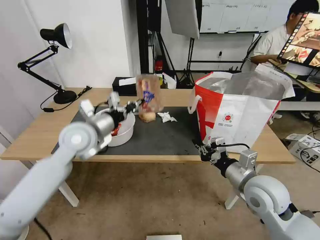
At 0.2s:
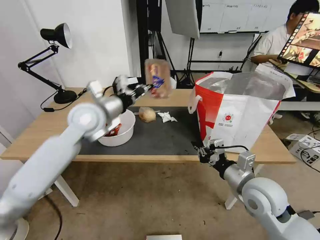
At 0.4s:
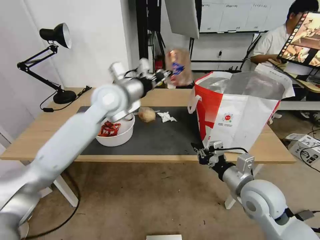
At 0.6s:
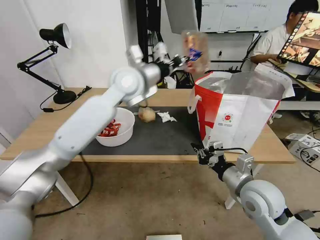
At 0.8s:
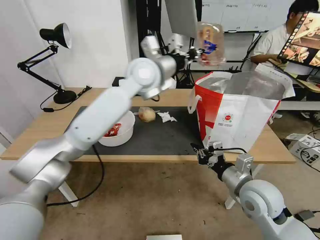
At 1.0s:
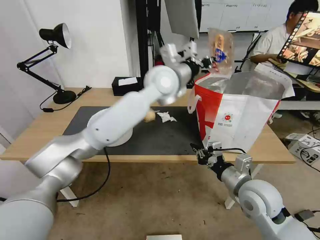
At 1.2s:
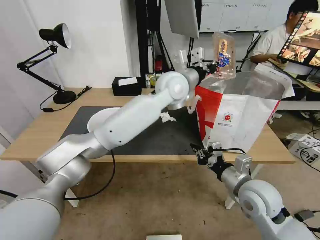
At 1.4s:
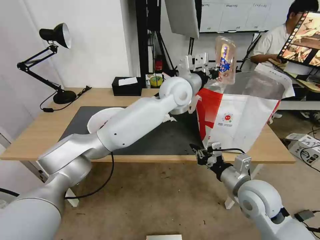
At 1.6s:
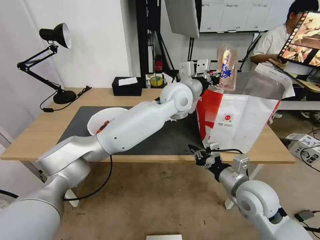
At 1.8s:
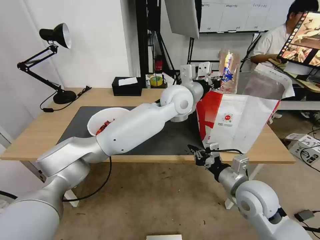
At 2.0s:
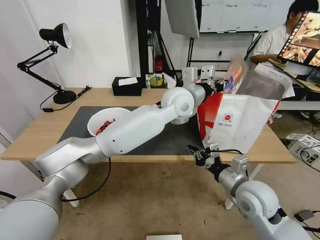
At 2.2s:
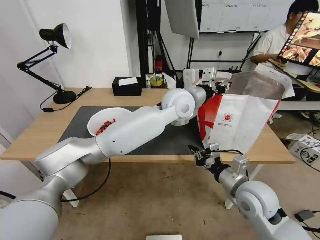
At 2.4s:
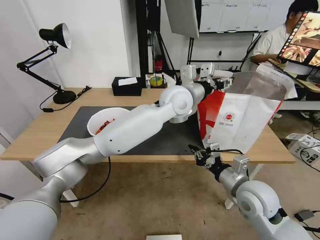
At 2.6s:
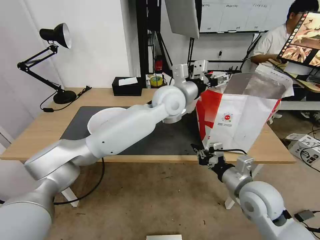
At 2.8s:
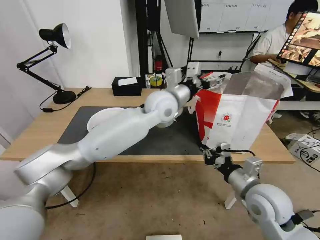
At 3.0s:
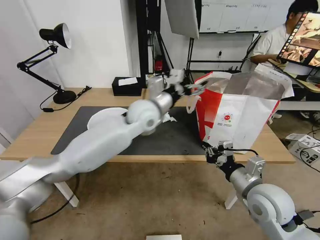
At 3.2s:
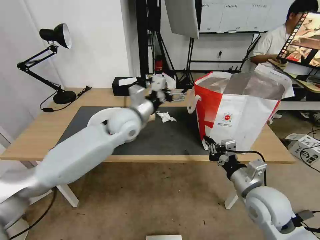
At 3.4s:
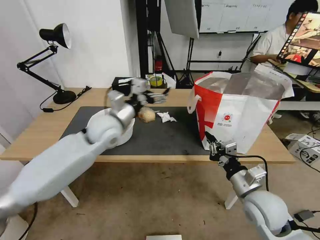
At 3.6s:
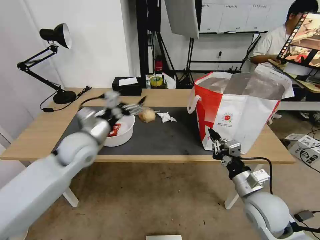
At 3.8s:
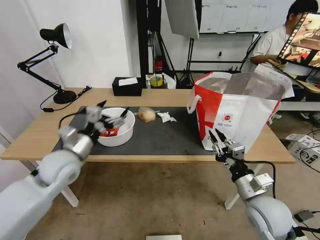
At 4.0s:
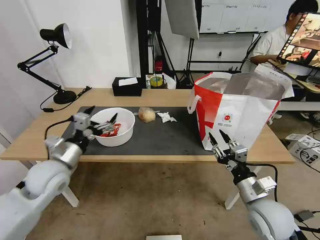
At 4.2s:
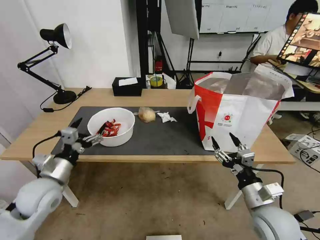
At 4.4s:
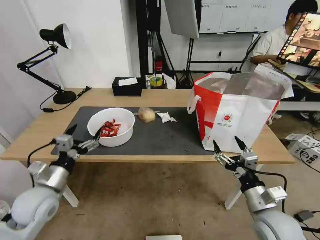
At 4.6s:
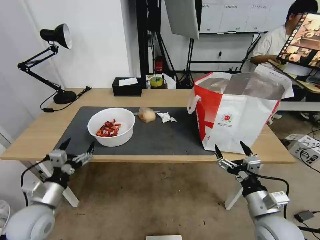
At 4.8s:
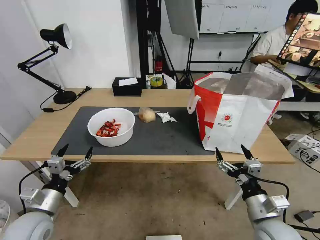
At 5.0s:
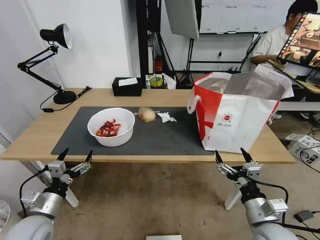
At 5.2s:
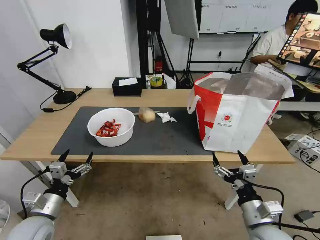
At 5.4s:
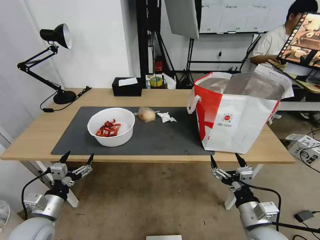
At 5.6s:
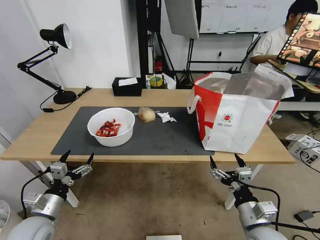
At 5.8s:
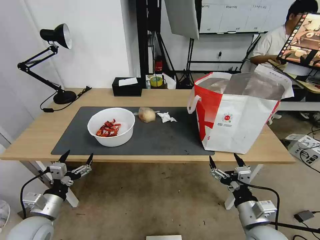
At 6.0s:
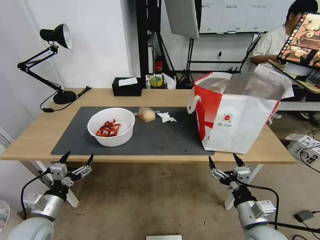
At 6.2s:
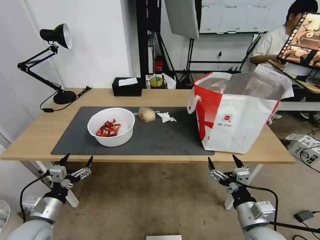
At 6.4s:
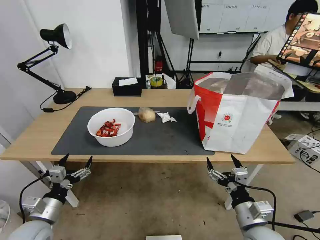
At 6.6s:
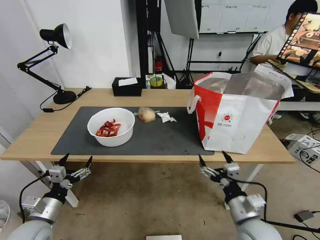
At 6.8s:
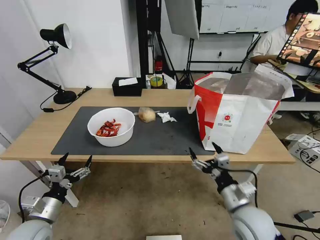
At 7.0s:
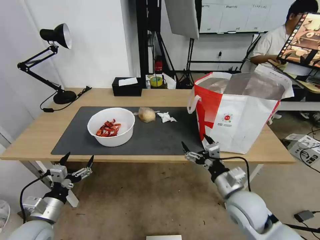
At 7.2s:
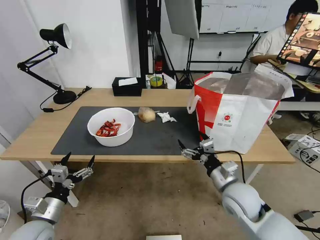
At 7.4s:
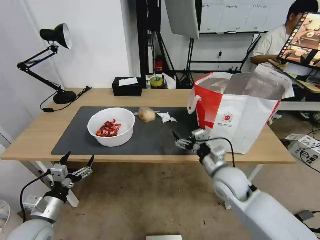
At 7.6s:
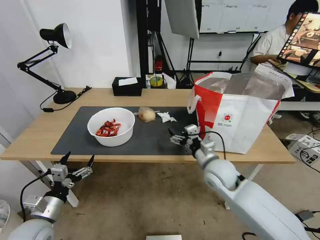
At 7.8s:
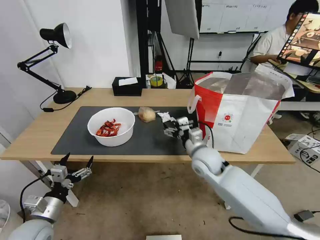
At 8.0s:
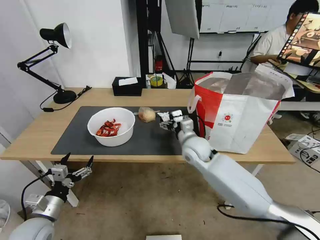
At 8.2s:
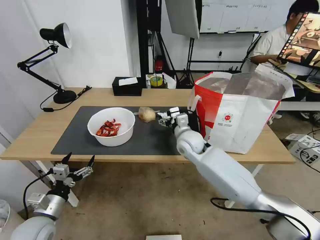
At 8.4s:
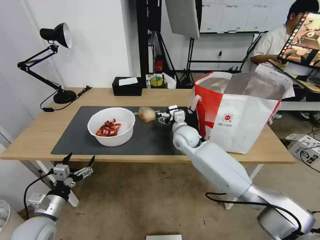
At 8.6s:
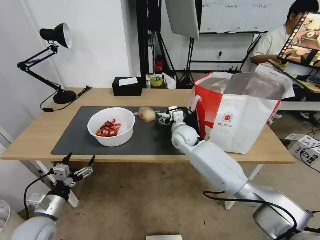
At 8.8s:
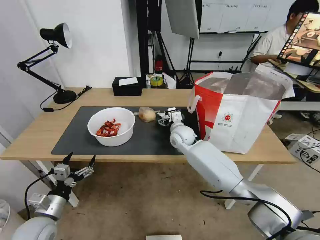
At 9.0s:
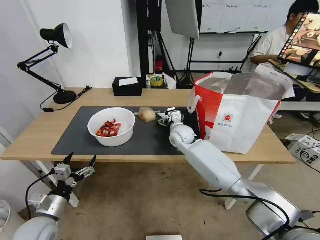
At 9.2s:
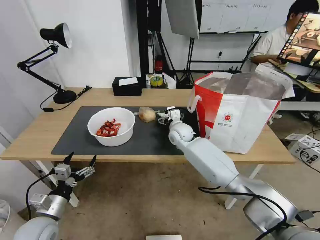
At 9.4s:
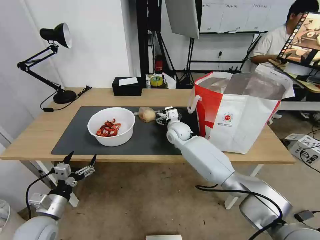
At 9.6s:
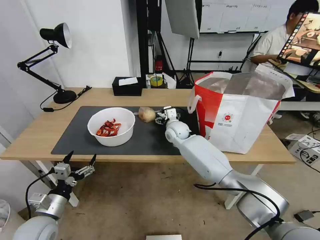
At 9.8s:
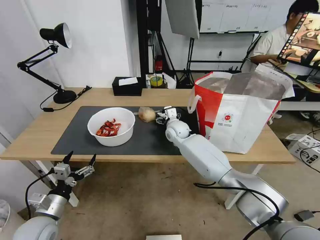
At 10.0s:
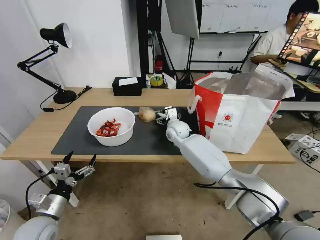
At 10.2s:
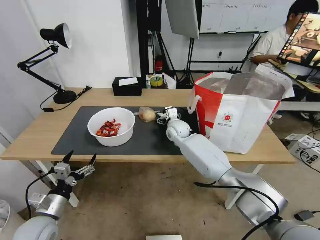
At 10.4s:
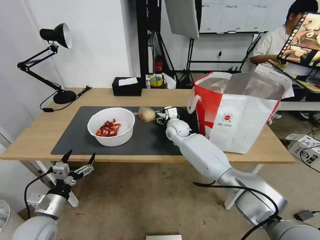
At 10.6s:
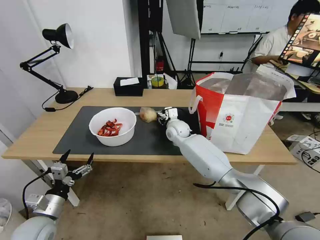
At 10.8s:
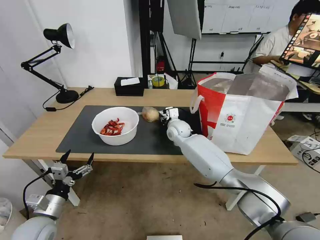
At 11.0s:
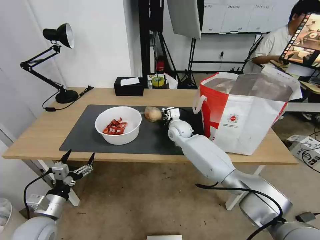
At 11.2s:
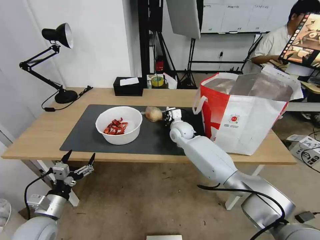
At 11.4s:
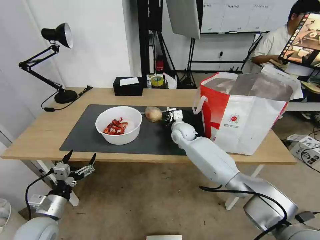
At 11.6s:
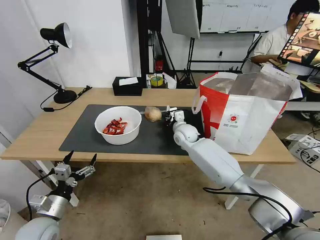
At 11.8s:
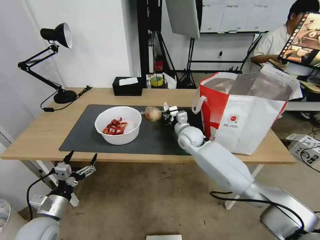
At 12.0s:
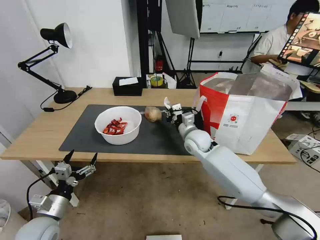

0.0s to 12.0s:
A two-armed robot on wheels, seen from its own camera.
Task of the whole recording: Pick up the trash from the table and place it into the takeout bag.
0.0s to 1.6s: The left gripper heads to the right, covering about 25 cm.
1.6s to 3.0s: The left gripper heads to the left, covering some 10 cm, and opens.
3.0s to 4.4s: The left gripper goes approximately 40 cm to the left, backward and downward. Meanwhile the right gripper travels downward by about 5 cm, and opens.
4.4s to 6.0s: The left gripper moves downward and backward, about 10 cm.
6.0s to 7.6s: The right gripper travels forward and to the left by approximately 20 cm.
7.6s to 9.0s: The right gripper shifts roughly 20 cm forward and to the left.
9.0s to 10.4s: The grippers stay close to where they were, moving slightly.
10.4s to 12.0s: The right gripper moves backward and to the right, some 10 cm, and closes its fingers.

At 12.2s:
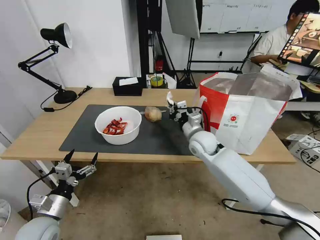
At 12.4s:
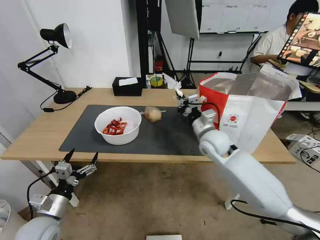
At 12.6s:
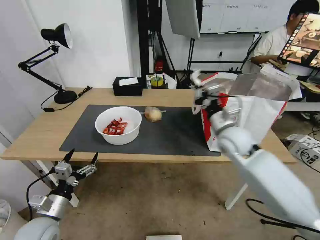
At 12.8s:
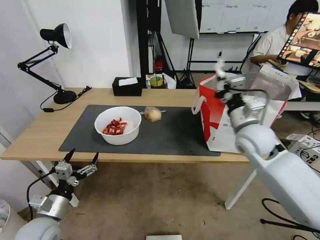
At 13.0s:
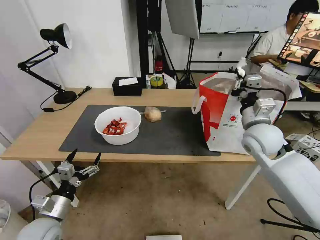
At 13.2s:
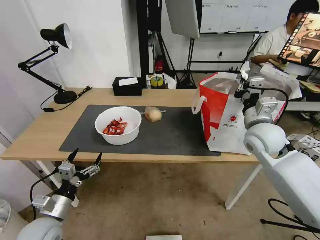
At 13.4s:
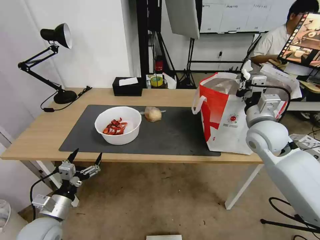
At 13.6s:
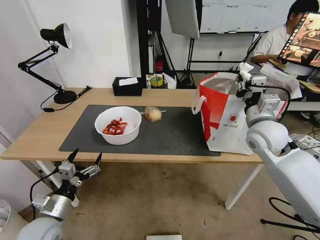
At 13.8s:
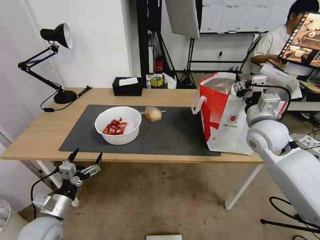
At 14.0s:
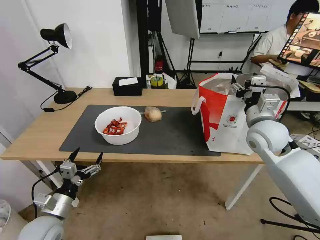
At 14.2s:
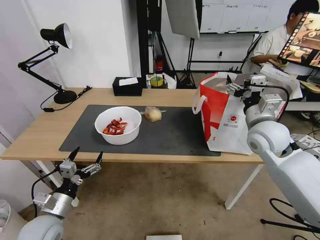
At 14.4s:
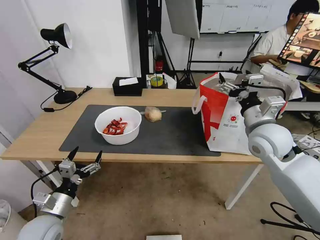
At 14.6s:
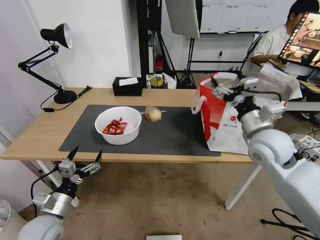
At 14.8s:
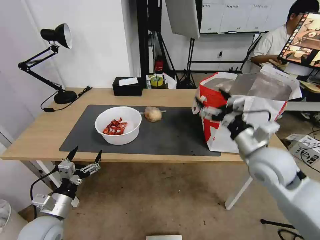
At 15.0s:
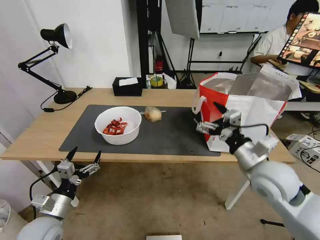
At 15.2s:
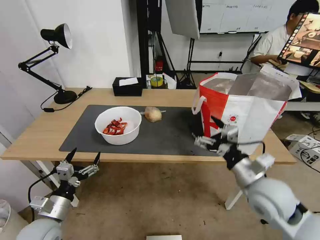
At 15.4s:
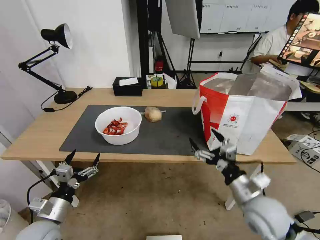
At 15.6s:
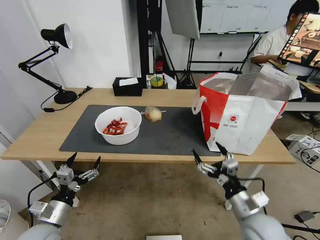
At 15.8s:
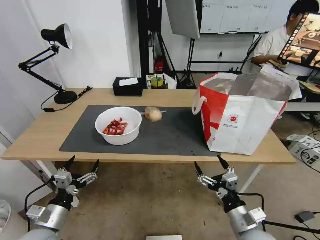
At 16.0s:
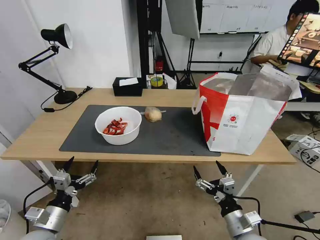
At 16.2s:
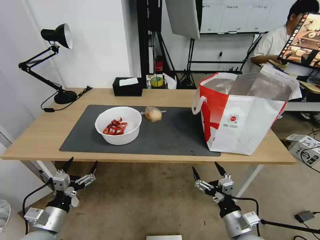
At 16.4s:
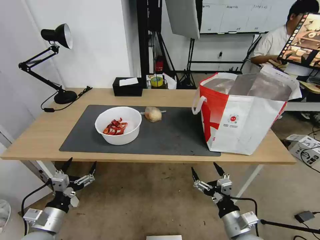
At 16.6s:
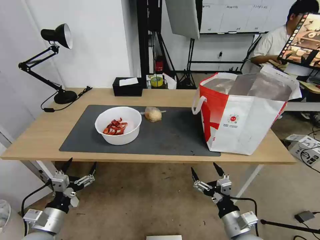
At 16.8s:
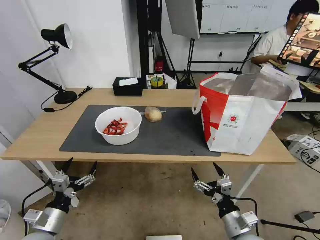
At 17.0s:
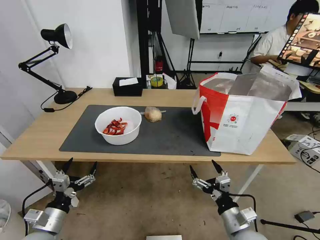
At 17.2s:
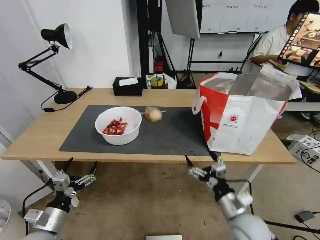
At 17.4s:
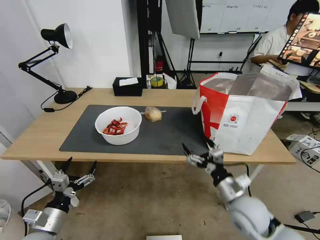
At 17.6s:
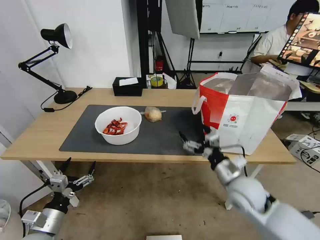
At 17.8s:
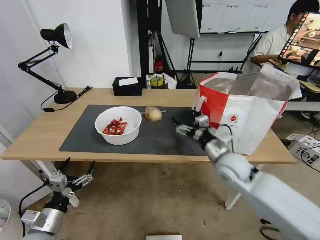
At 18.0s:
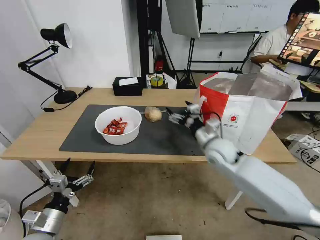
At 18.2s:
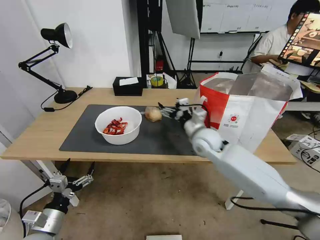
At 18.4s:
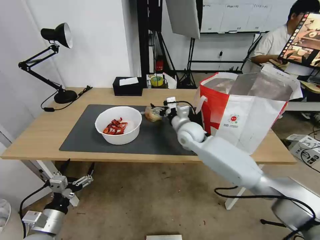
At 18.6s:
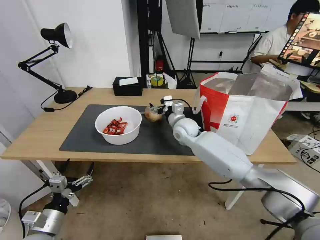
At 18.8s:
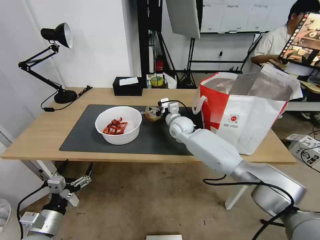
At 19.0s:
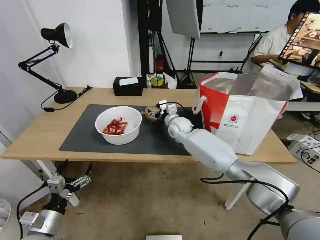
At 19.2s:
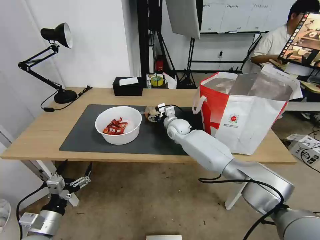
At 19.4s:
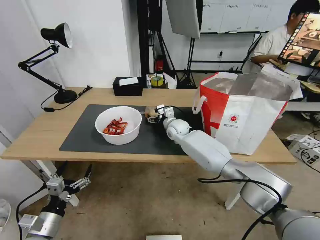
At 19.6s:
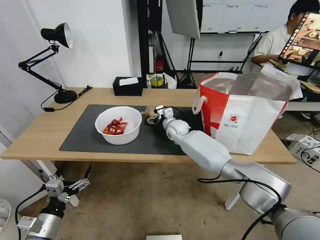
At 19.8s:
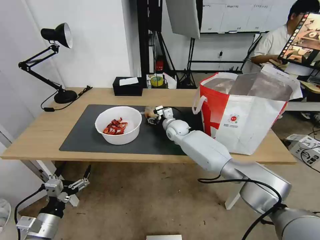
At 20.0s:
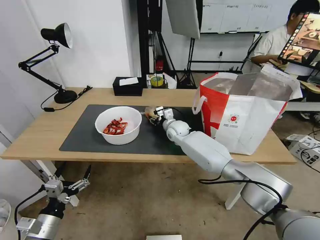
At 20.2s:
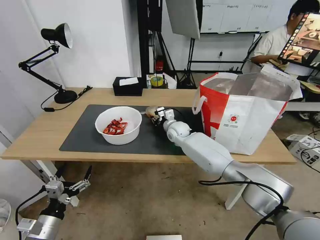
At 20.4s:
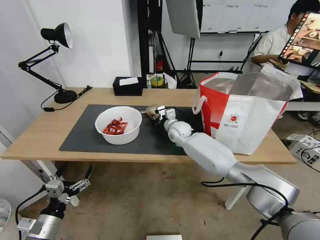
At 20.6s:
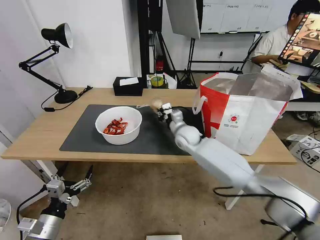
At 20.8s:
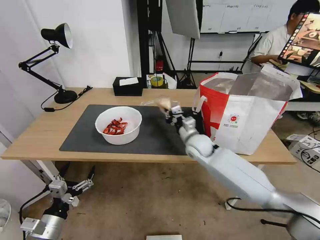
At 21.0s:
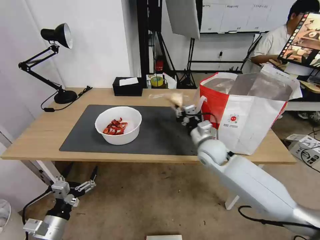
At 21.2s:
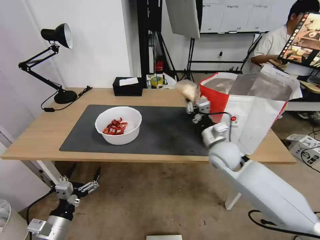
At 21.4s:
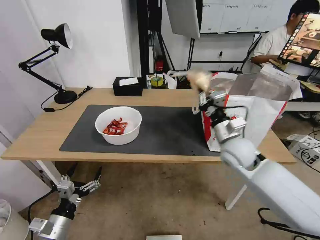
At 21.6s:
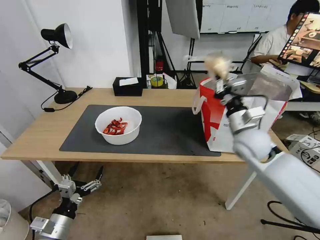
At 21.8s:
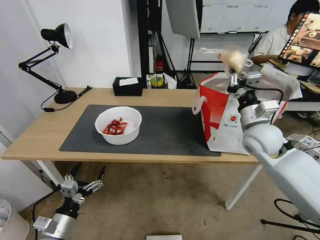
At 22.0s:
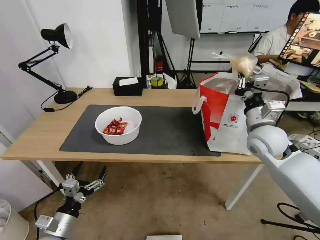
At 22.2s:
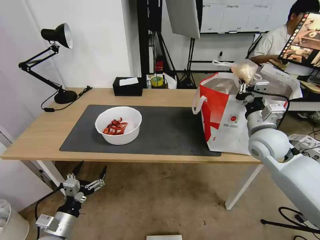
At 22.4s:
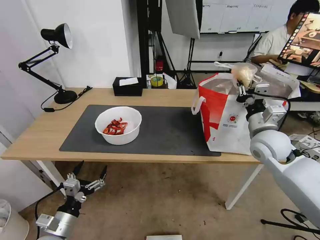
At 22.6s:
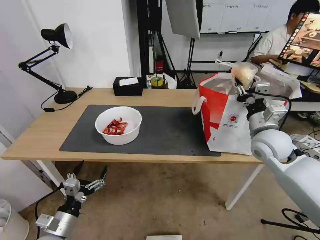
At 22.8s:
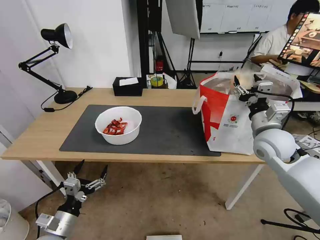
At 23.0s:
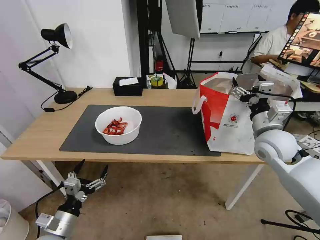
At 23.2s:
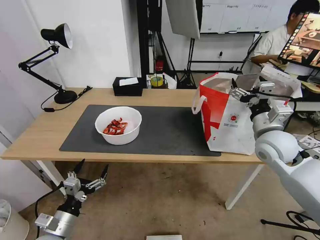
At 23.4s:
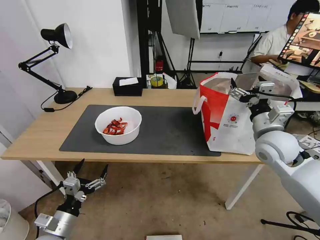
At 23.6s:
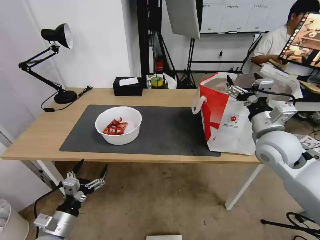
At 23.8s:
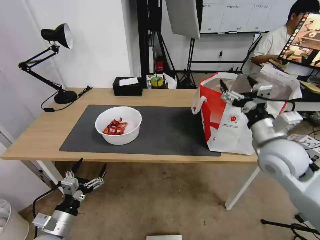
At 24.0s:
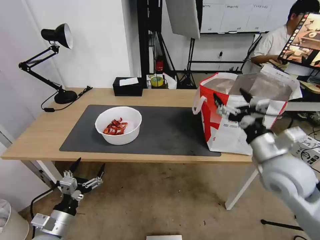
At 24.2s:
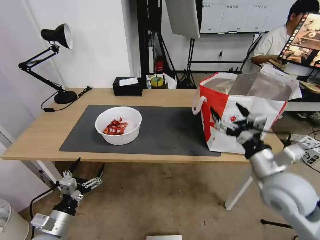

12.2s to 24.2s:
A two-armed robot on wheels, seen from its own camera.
Task of the whole recording: Pick up the trash from the table and place it into the takeout bag.
12.2s to 13.8s: The right gripper travels to the right, upward and backward by some 20 cm, and opens its fingers.
13.8s to 15.2s: The right gripper goes roughly 15 cm backward and downward, and opens up.
15.2s to 16.6s: The right gripper goes about 20 cm downward and backward.
16.6s to 18.2s: The right gripper moves forward and upward, approximately 35 cm.
18.2s to 19.8s: The right gripper moves forward, to the left and downward, some 15 cm.
19.8s to 21.2s: The right gripper moves backward and to the right, approximately 20 cm, and closes its fingers.
21.2s to 22.6s: The right gripper is displaced to the right and upward by some 15 cm, and opens.
22.6s to 24.2s: The right gripper travels backward by roughly 15 cm, and opens its fingers.
